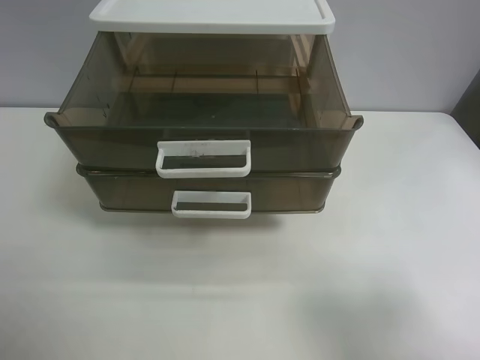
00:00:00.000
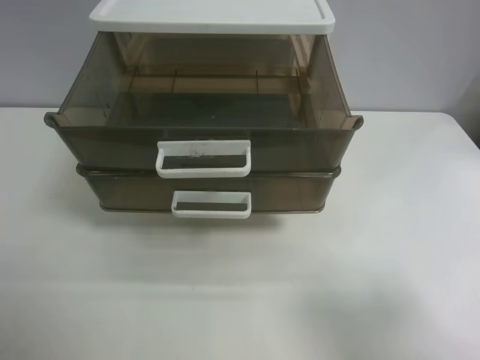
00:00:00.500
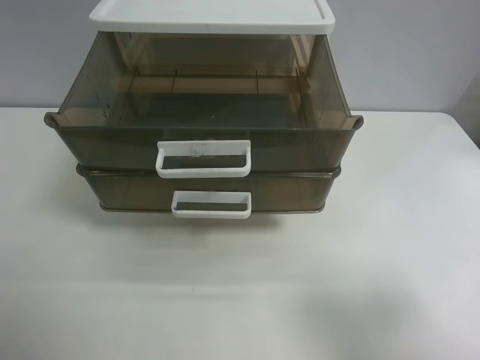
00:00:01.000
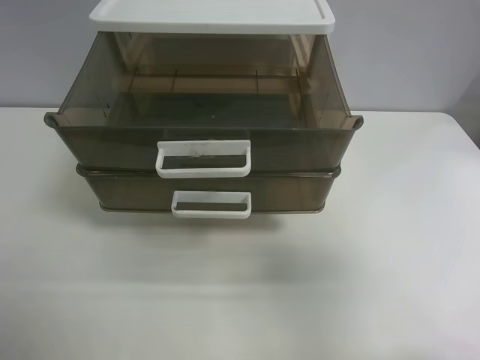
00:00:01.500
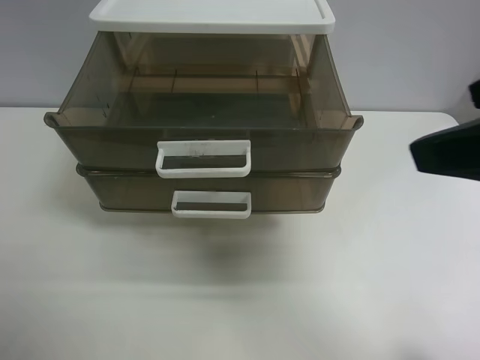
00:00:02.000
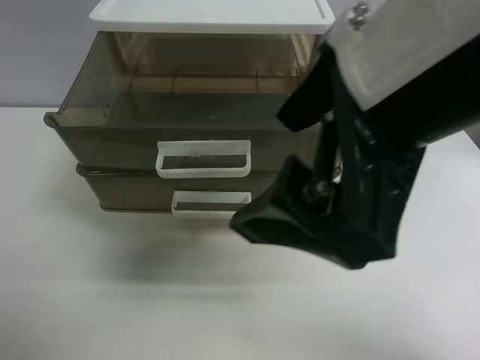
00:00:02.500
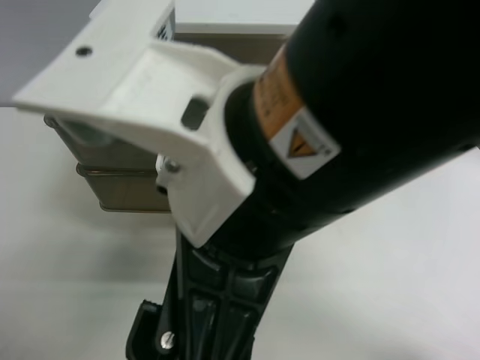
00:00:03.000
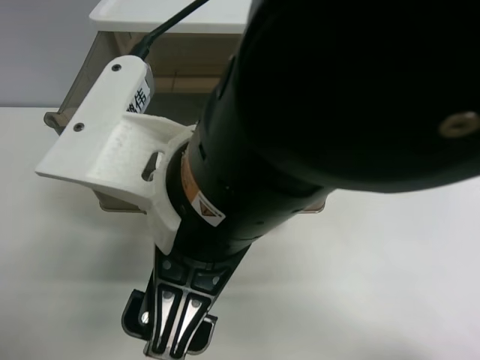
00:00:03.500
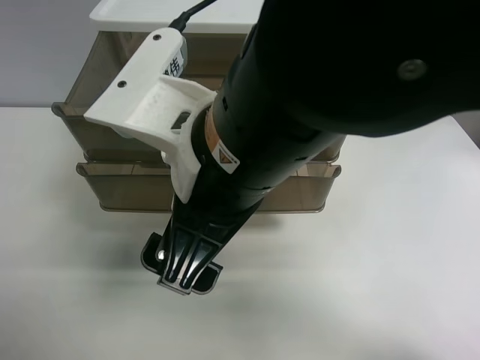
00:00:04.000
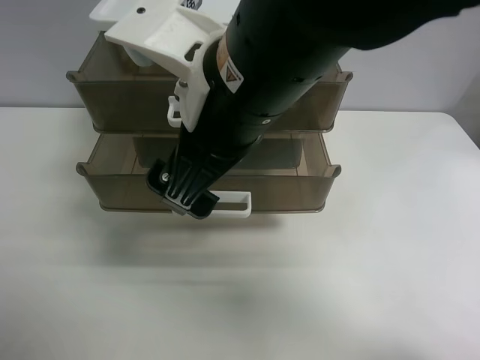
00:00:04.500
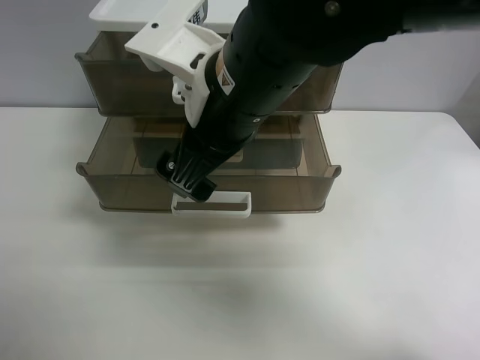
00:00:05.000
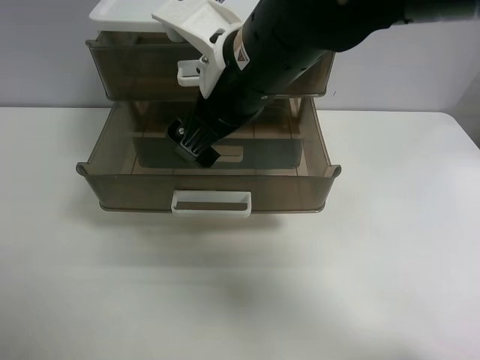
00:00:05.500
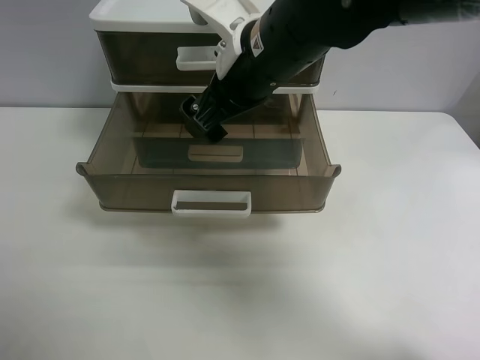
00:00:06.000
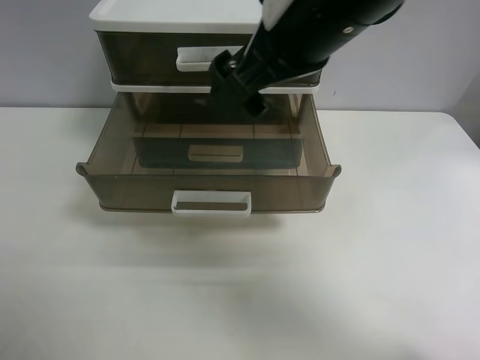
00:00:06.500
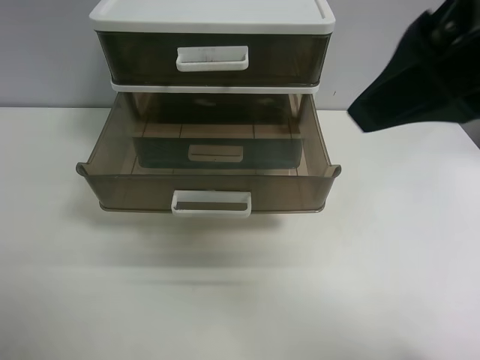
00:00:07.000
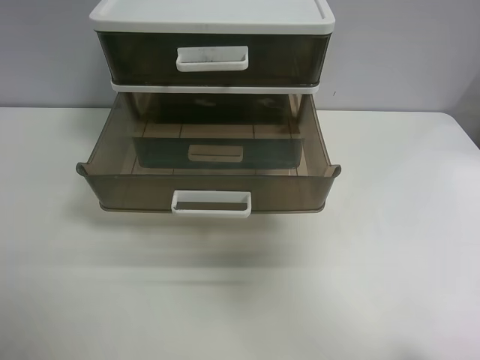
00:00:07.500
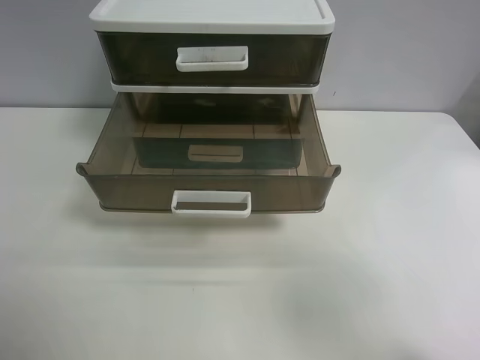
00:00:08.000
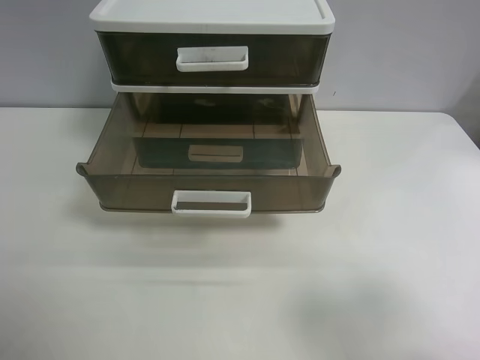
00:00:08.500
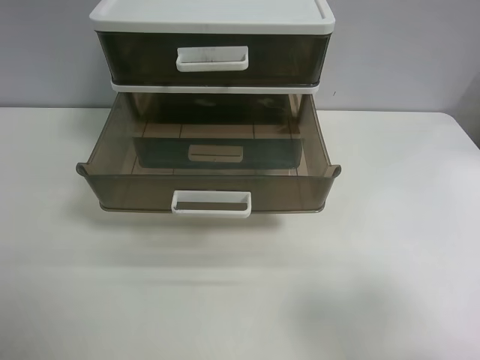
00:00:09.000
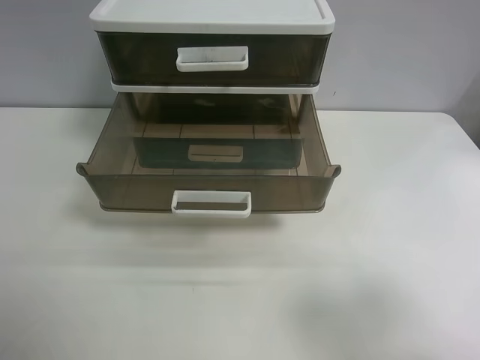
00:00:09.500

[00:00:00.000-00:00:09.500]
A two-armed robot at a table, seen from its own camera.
Task of the whole recording: close the top drawer.
Step, 00:00:00.000 to 00:00:03.500: Use the right gripper to touch the topmost layer of the storage cabinet.
Step, 00:00:04.000 to 00:00:06.000: Push the top drawer closed.
00:00:02.000 to 00:00:04.000: The right gripper heads to the left, covering approximately 25 cm.
00:00:04.000 to 00:00:05.500: The right gripper is displaced forward by approximately 10 cm.
00:00:05.500 to 00:00:07.500: The right gripper travels to the right, backward and upward by approximately 30 cm.
00:00:07.500 to 00:00:09.500: The right gripper heads downward and backward, covering roughly 15 cm.
